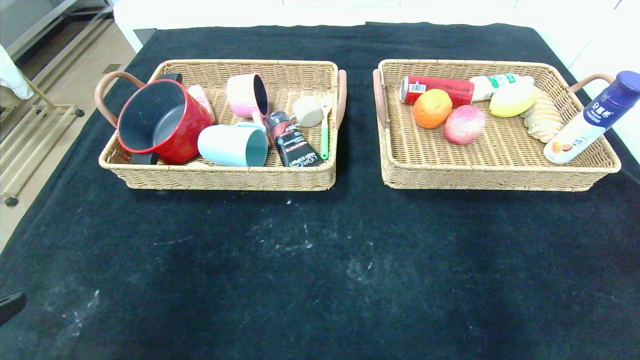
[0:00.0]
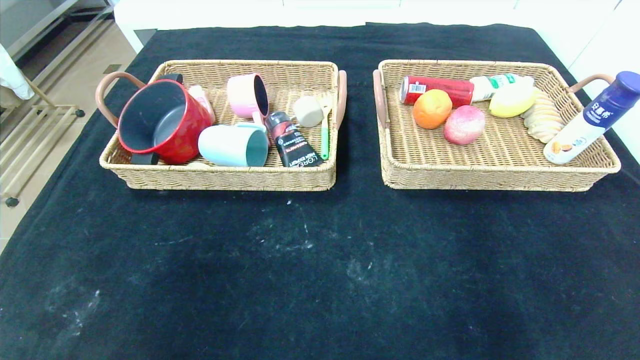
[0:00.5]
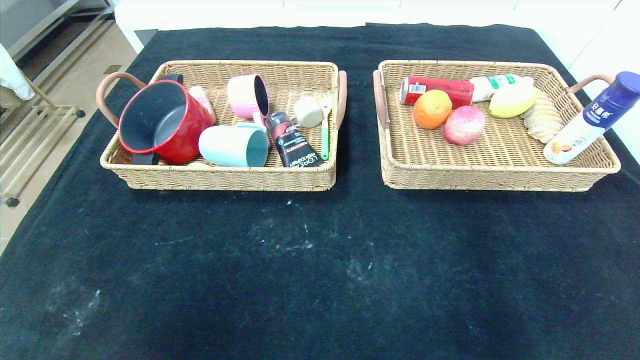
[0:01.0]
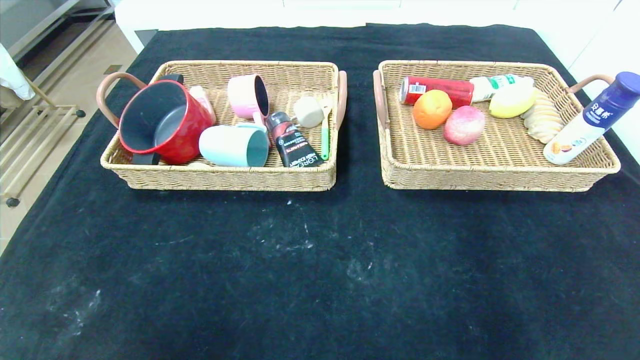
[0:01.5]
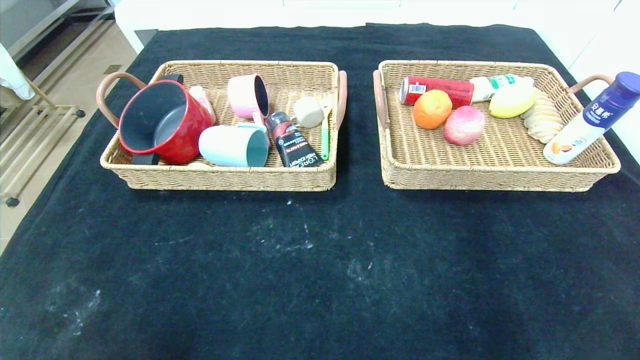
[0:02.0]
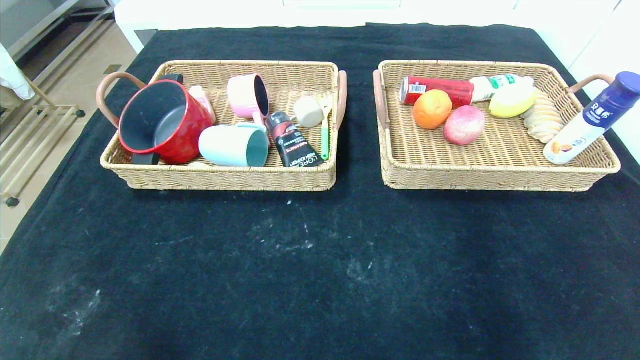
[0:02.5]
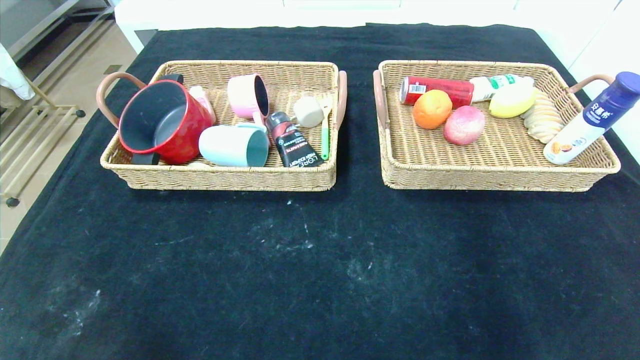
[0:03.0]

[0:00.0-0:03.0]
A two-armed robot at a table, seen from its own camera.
0:00.0 to 0:01.5: Both grippers move backward and downward, some 15 cm.

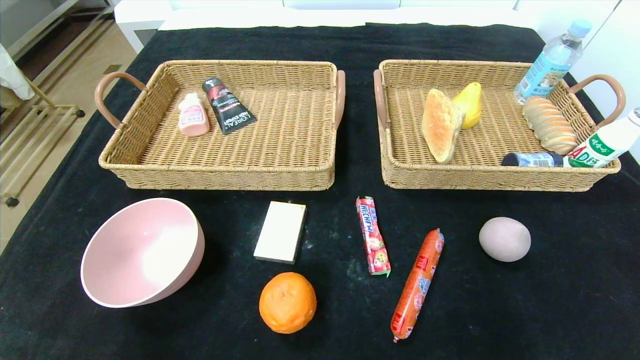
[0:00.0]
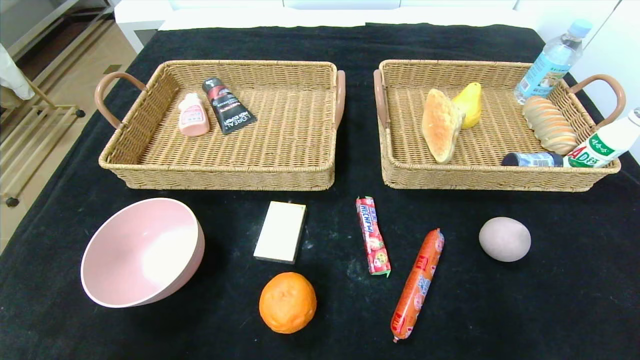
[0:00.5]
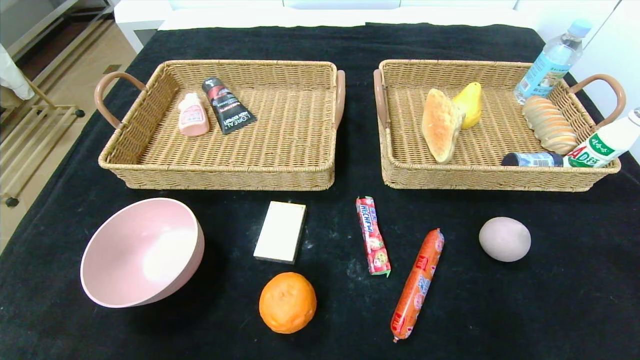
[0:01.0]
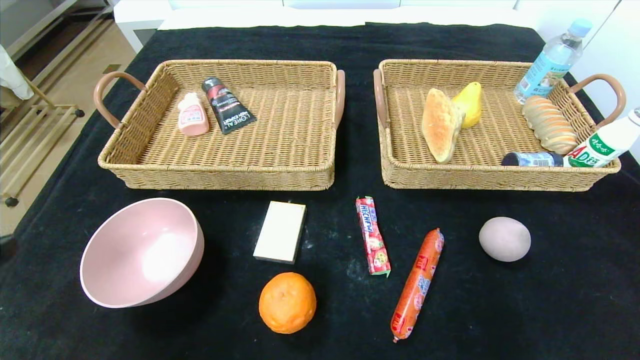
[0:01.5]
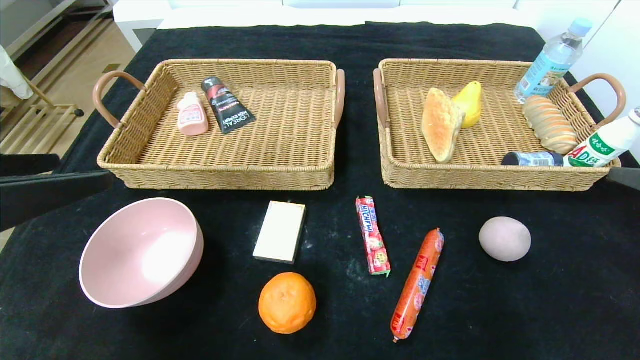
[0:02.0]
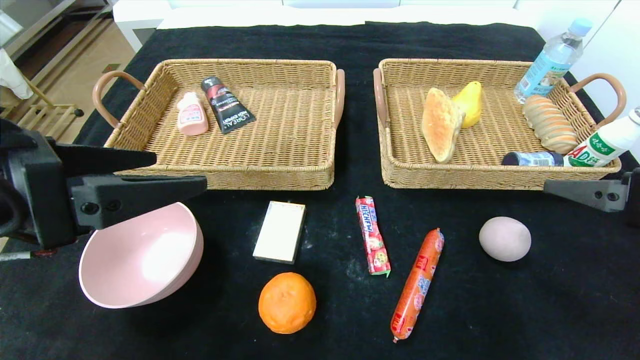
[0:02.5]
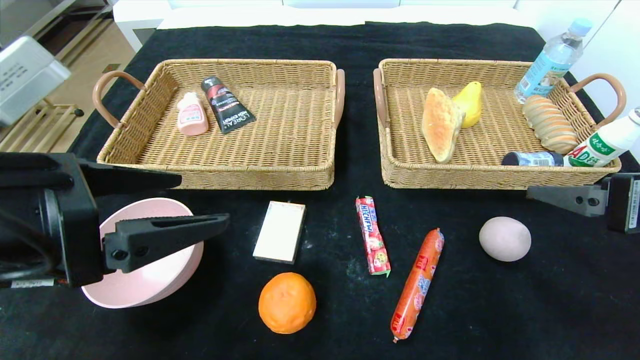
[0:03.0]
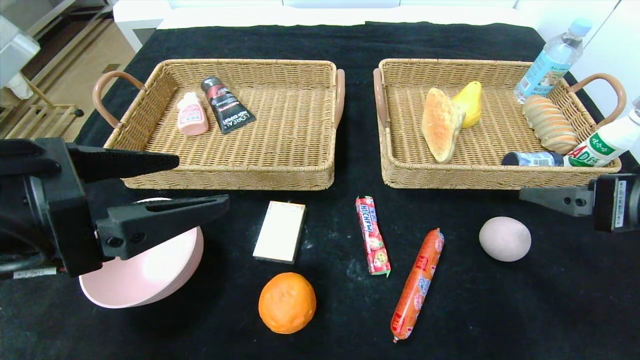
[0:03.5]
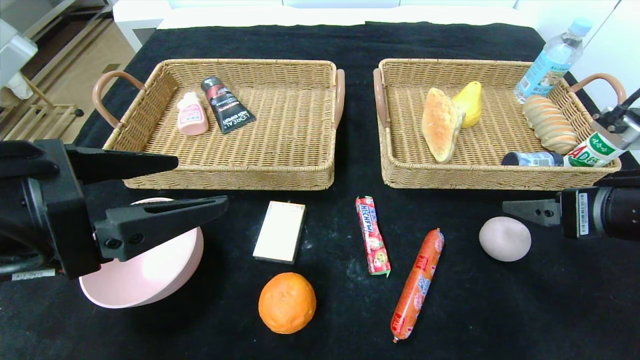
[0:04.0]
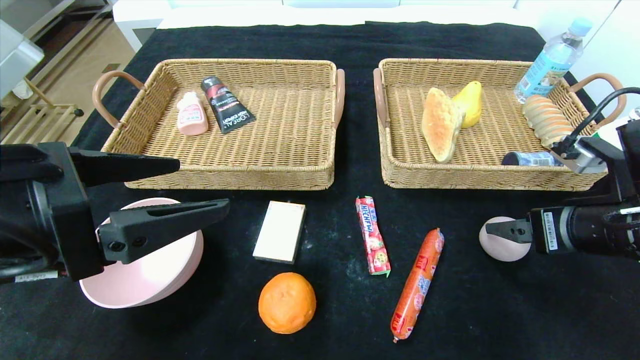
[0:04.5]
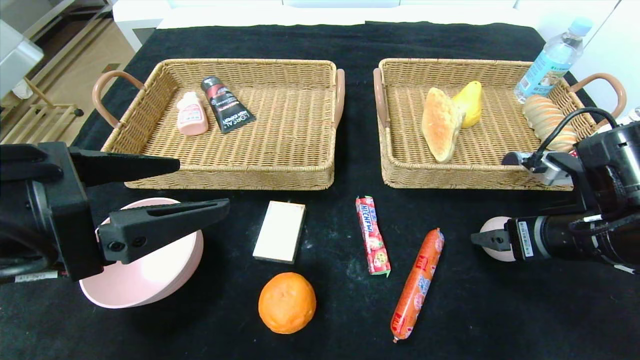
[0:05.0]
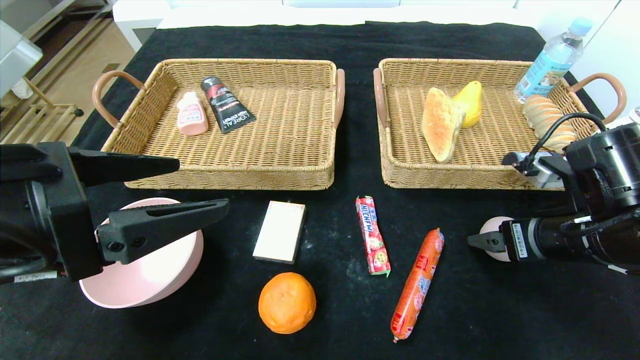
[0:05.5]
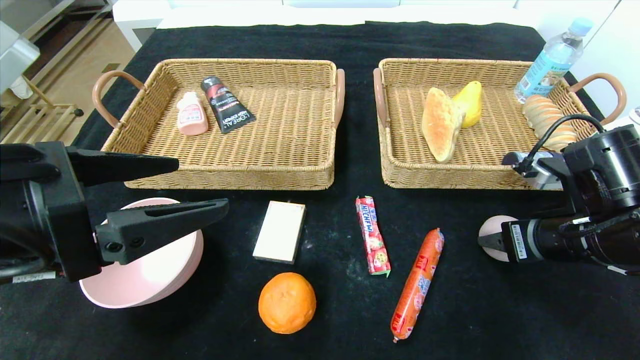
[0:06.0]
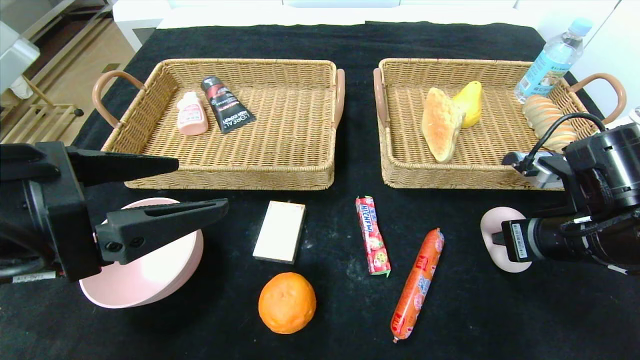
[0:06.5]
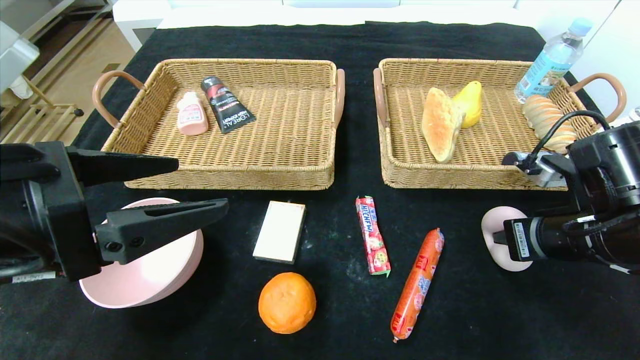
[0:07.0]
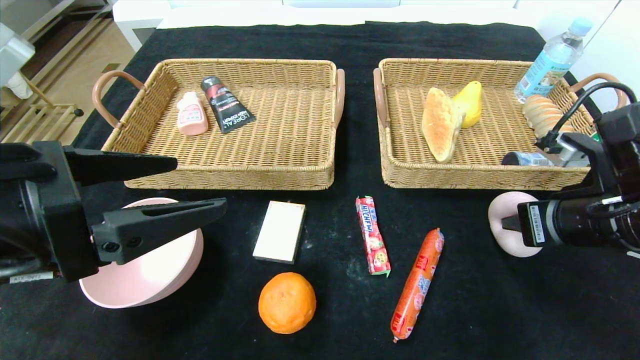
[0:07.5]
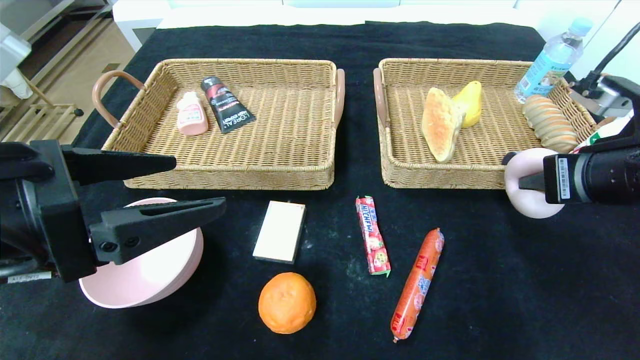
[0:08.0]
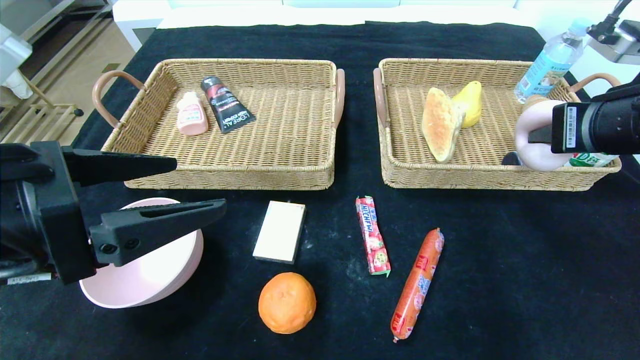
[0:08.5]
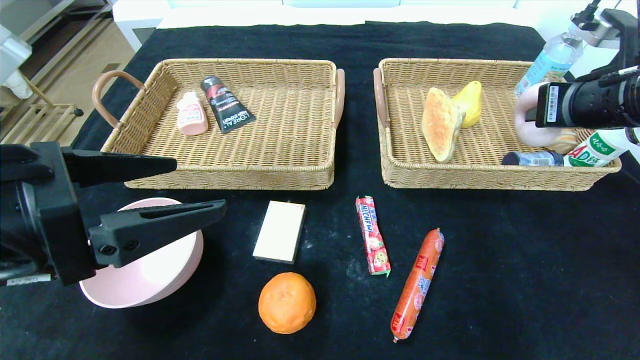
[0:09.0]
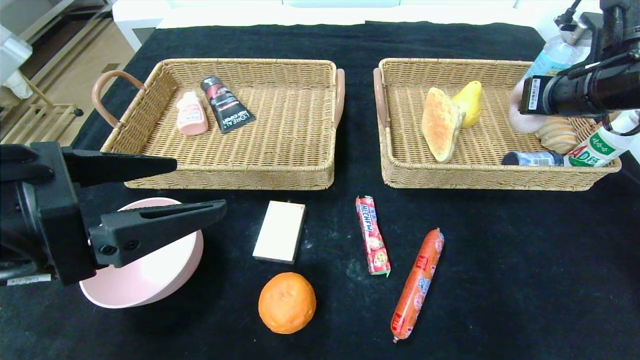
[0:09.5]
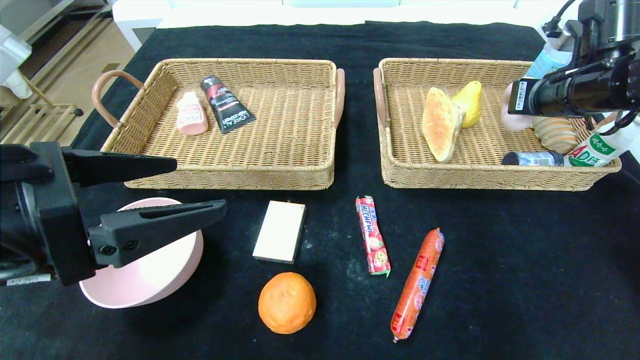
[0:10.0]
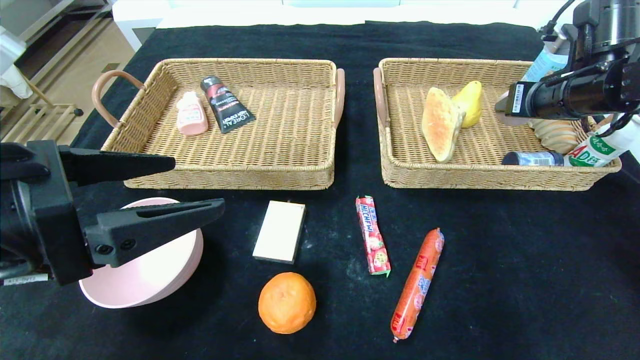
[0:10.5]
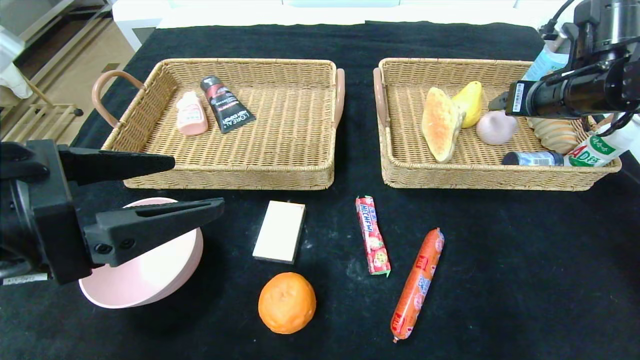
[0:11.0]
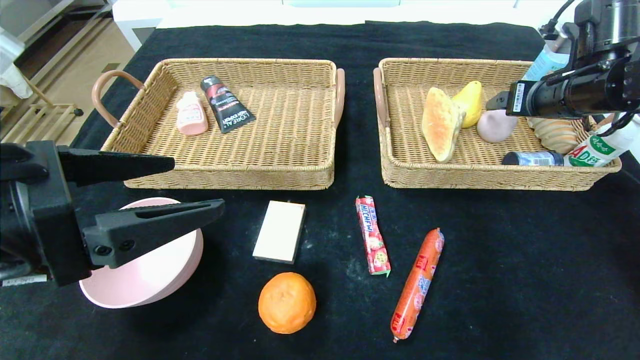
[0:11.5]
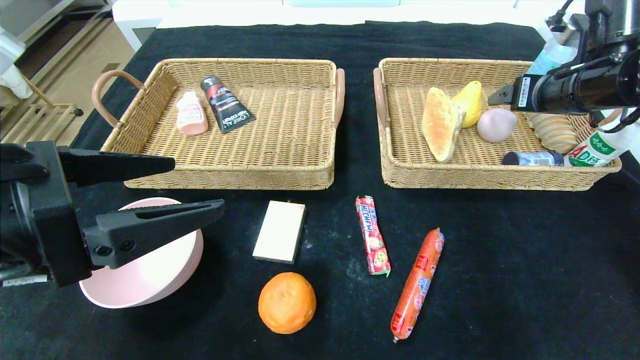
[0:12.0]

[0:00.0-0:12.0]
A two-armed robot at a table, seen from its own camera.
Step, 0:00.0 to 0:11.0: Grasp the peach and put it in the right basket.
0:00.0 to 0:02.0: Both grippers move upward and forward, about 30 cm.
0:02.0 to 0:04.0: The right gripper moves forward and to the left, roughly 10 cm, while the left gripper shifts by about 5 cm.
0:04.0 to 0:06.0: The right gripper shifts approximately 5 cm downward, and closes its fingers.
0:06.0 to 0:08.0: The right gripper is displaced upward by some 10 cm, and closes up.
0:08.0 to 0:10.0: The right gripper heads forward, covering about 15 cm.
0:10.0 to 0:12.0: The right gripper opens up.

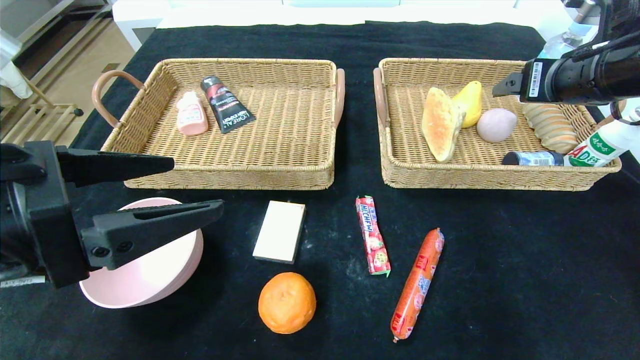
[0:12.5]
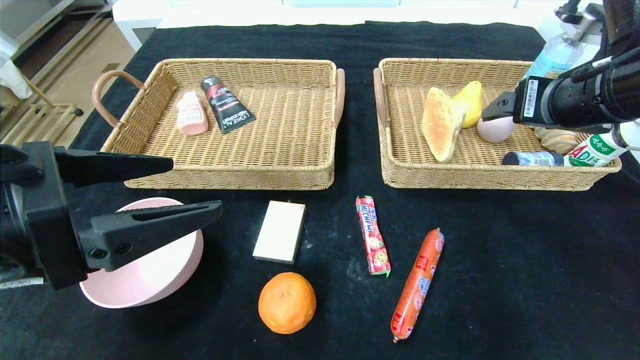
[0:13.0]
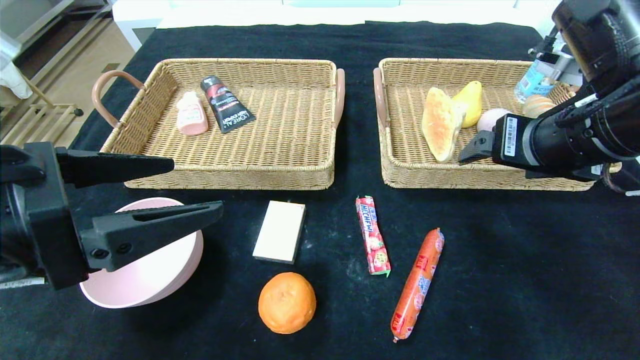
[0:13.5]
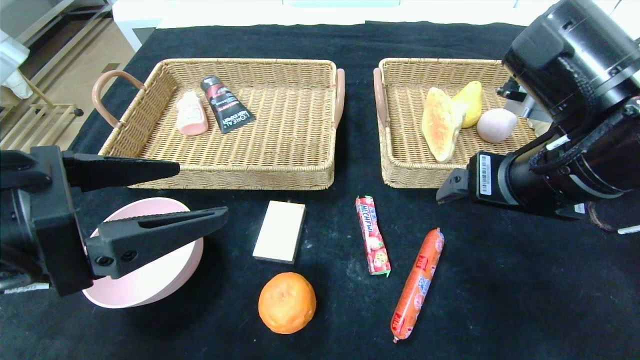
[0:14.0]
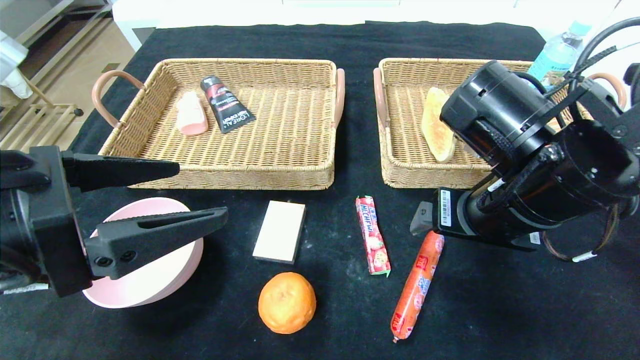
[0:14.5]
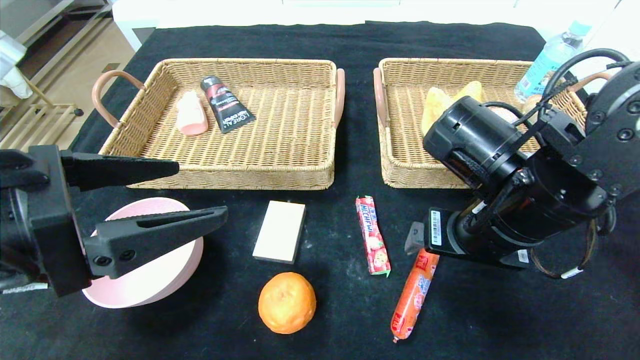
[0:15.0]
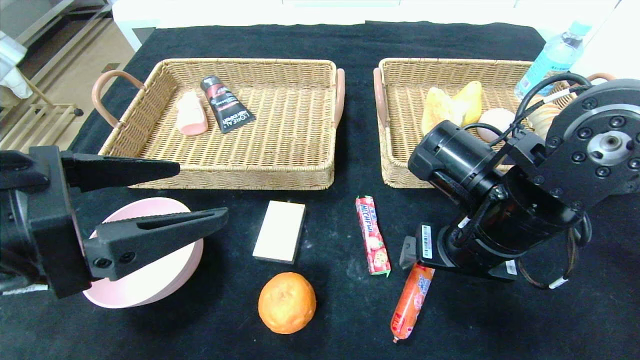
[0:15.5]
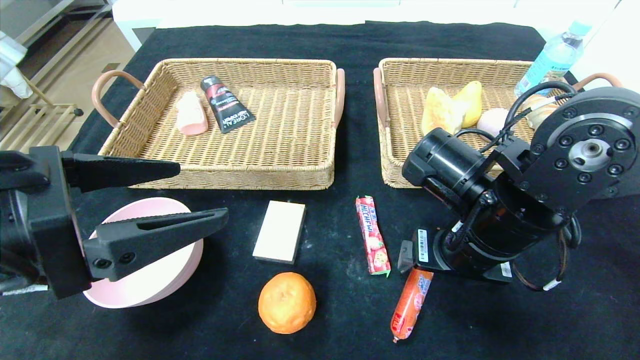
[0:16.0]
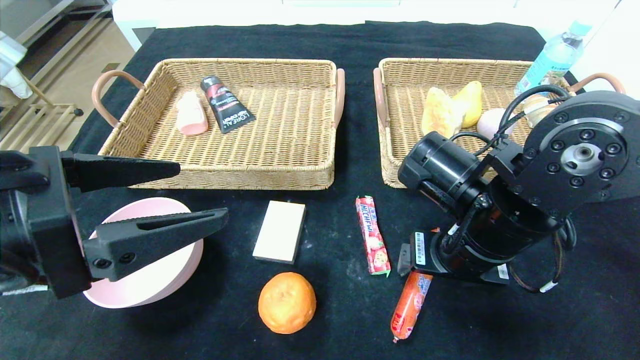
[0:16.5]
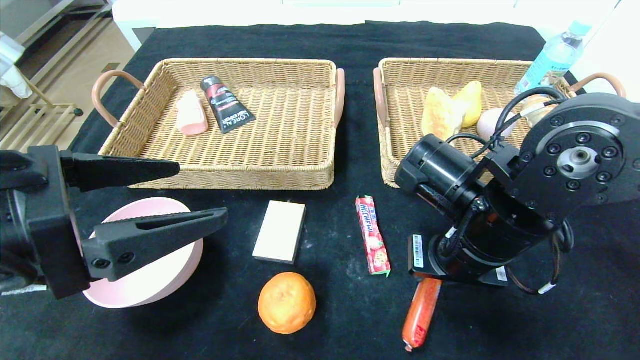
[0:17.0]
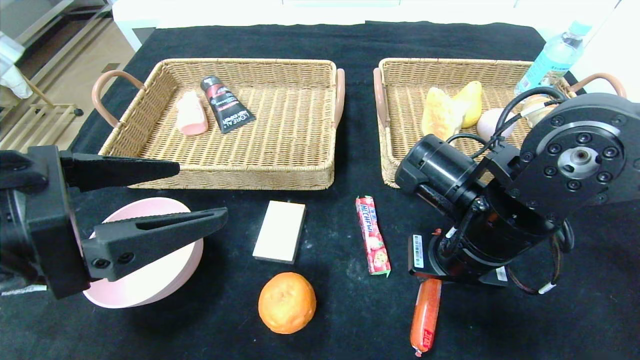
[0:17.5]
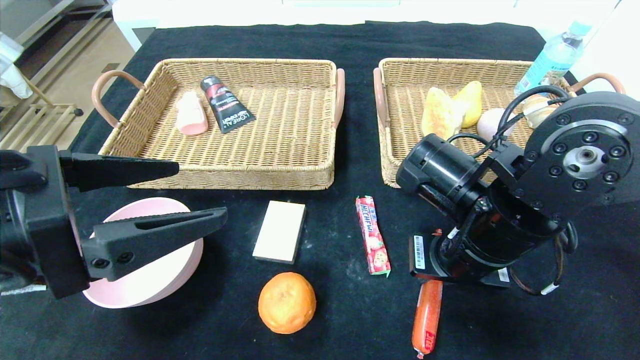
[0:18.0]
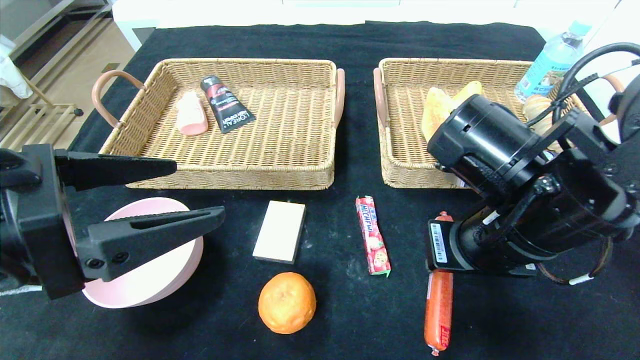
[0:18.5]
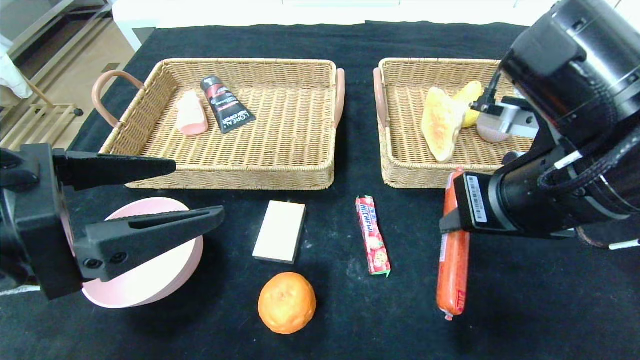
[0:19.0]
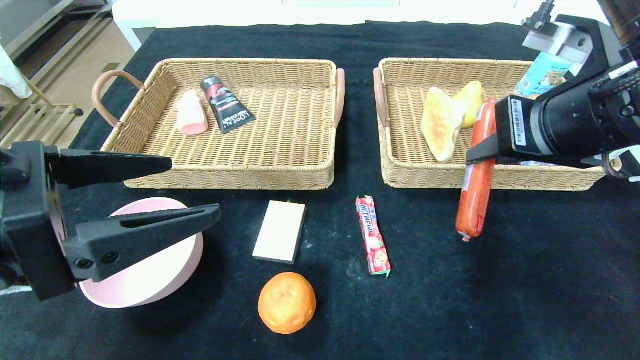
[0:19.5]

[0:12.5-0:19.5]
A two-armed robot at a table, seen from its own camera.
0:12.5 to 0:14.5: The right gripper goes about 15 cm to the left, backward and downward.
0:14.5 to 0:16.0: The right gripper shifts by approximately 5 cm.
0:16.0 to 0:17.5: The right gripper closes.
0:17.5 to 0:19.5: The right gripper travels upward and to the right by roughly 15 cm.
